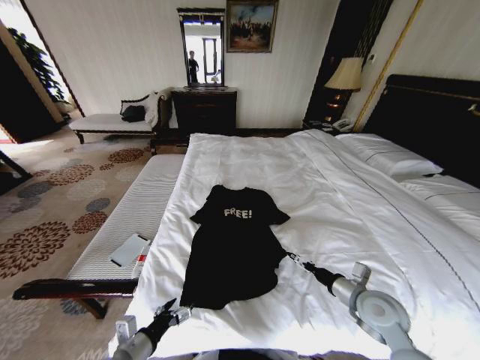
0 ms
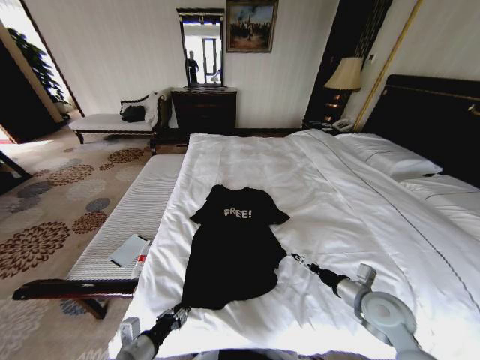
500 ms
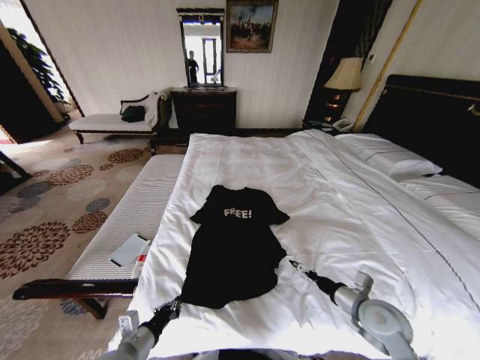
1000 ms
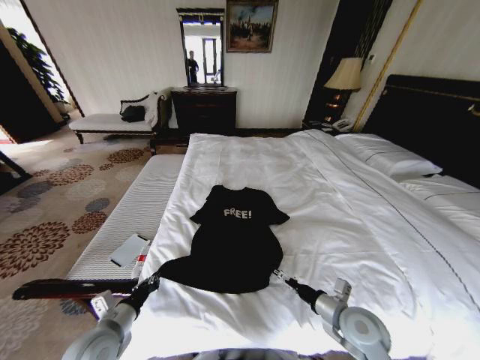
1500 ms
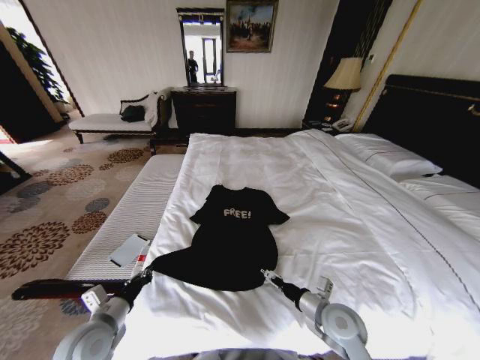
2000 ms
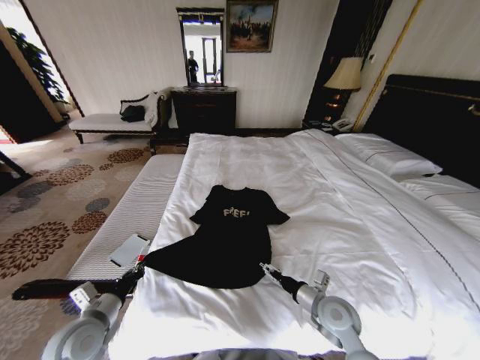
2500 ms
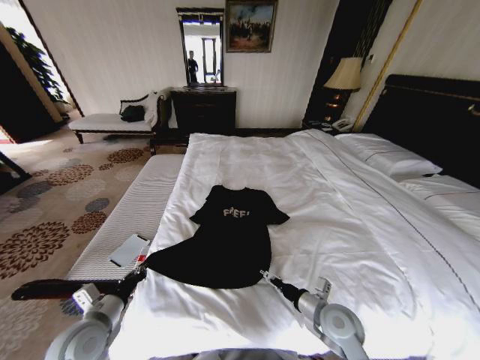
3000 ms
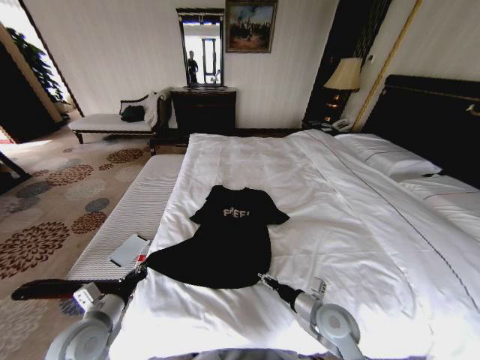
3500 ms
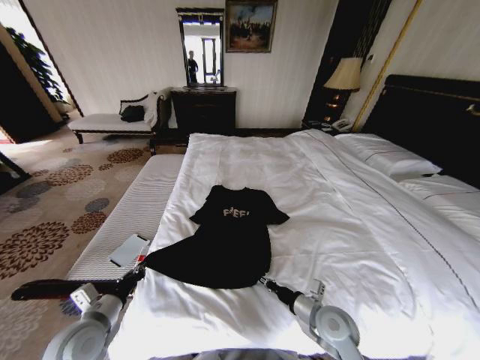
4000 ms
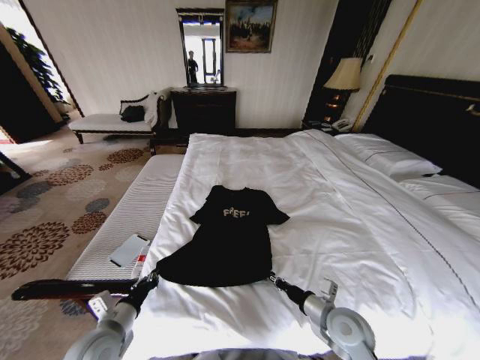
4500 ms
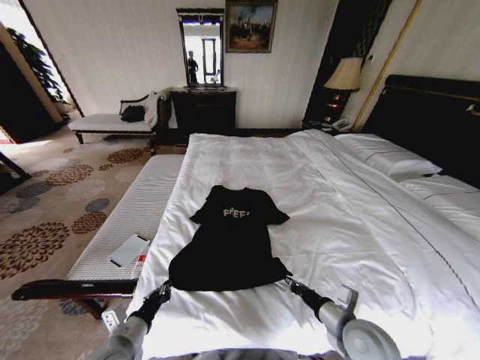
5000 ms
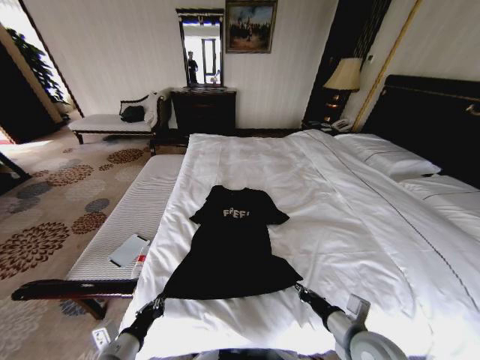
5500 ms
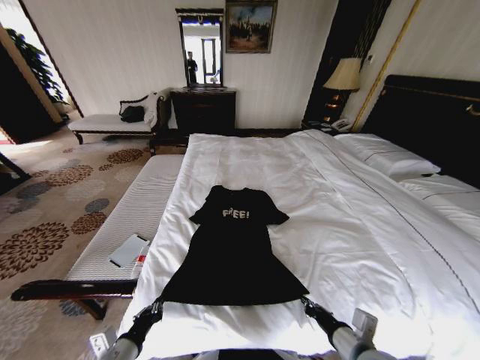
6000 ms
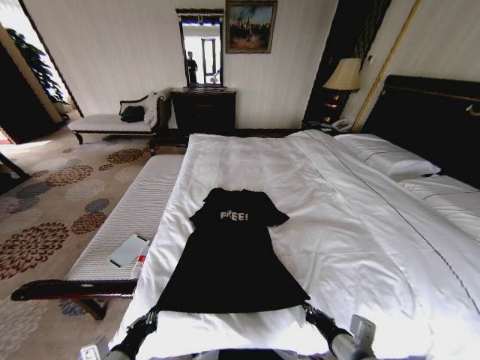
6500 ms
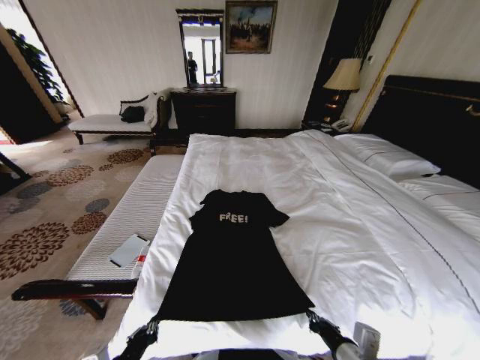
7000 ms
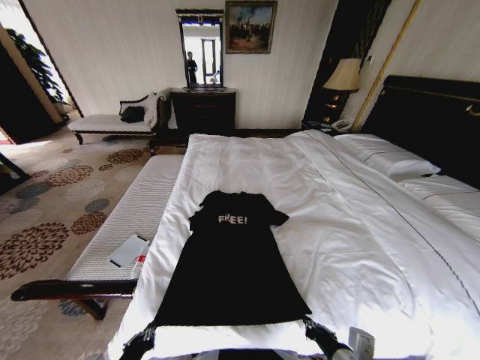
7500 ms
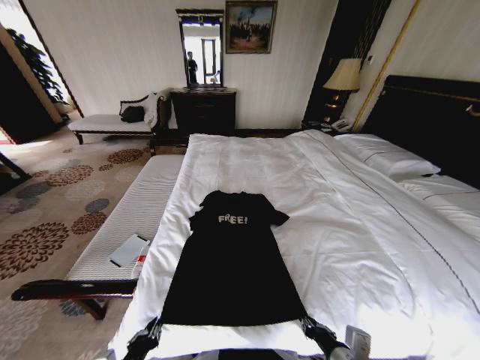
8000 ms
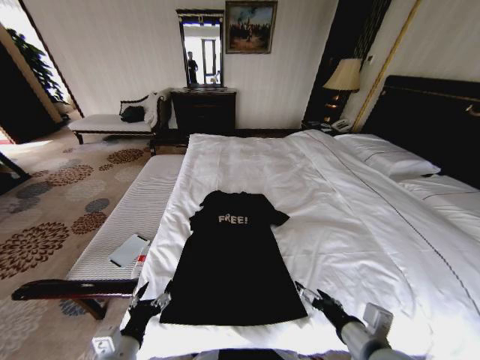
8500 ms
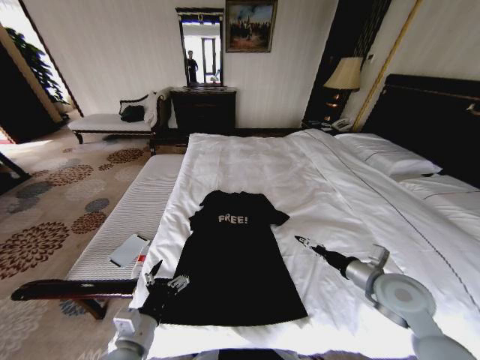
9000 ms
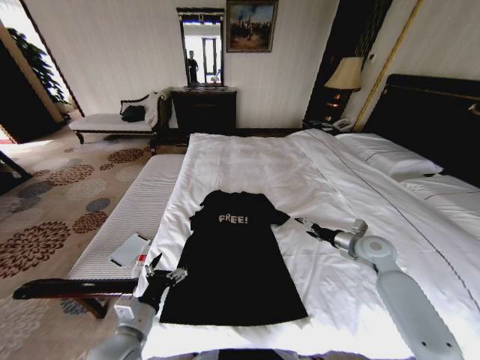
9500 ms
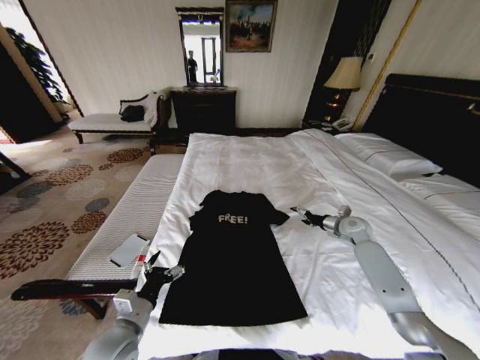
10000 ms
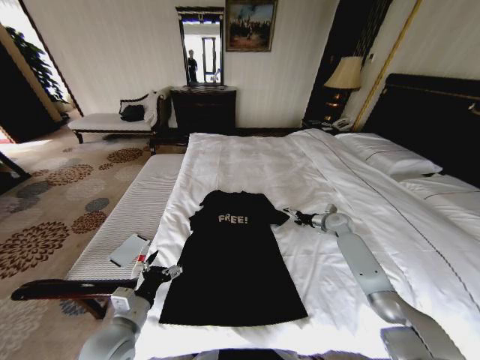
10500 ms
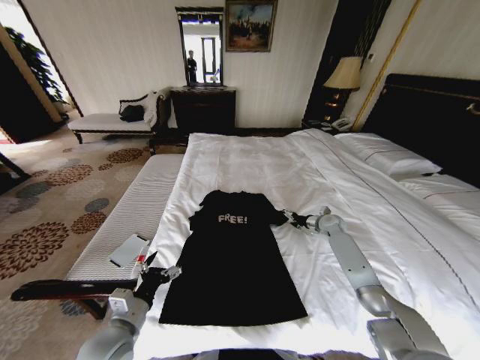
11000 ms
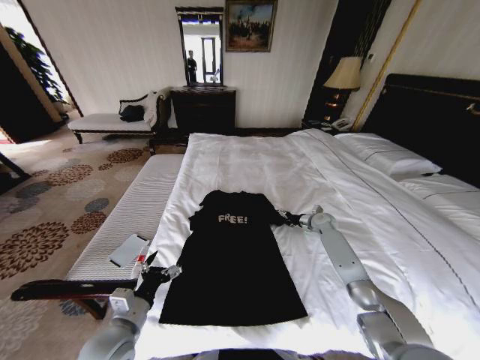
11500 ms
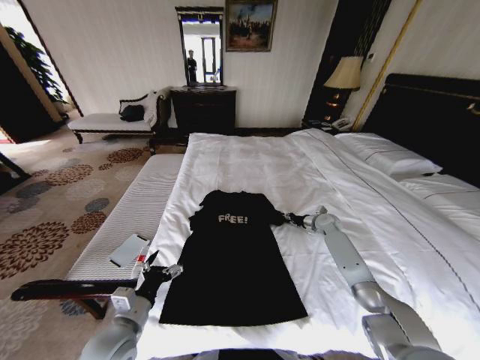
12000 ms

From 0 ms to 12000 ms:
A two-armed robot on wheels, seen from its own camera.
Task of the whole recording: Fold the clothes on the bed.
From 0 ms to 2000 ms: The left gripper moves forward and to the left, approximately 10 cm, and closes its fingers. The right gripper moves to the left, roughly 10 cm.
From 2000 ms to 4000 ms: The right gripper closes its fingers.
From 4000 ms to 6000 ms: The right gripper shifts approximately 10 cm backward and upward, while the left gripper travels backward and to the right by approximately 10 cm.
From 6000 ms to 8000 ms: The grippers make only small movements.
From 8000 ms to 10000 ms: The left gripper goes about 10 cm forward, and opens up. Meanwhile the right gripper is displaced forward and to the right by roughly 40 cm, and opens up.
From 10000 ms to 12000 ms: The right gripper heads forward and downward, covering some 10 cm, and closes up.

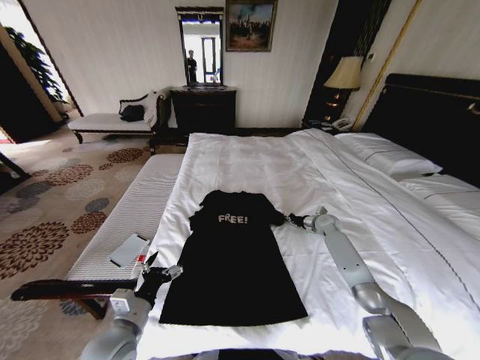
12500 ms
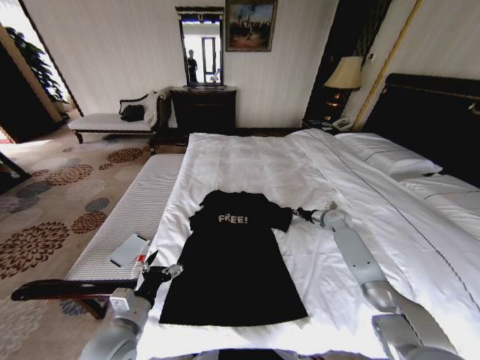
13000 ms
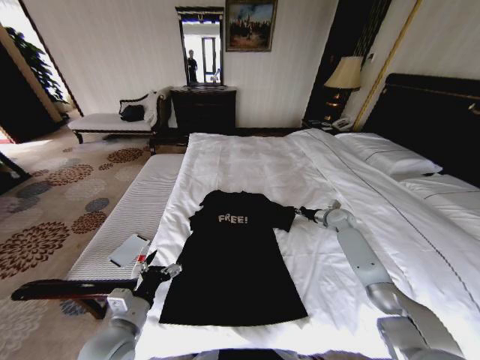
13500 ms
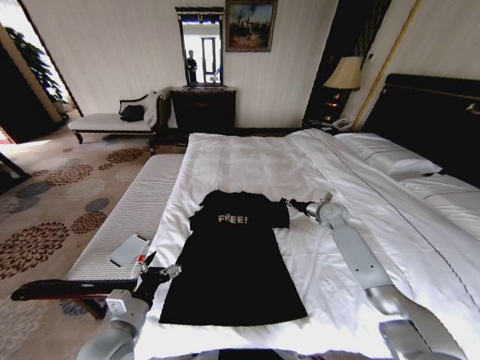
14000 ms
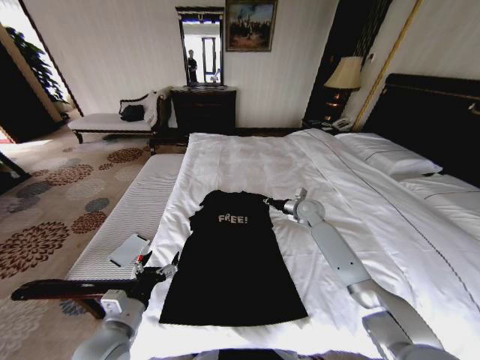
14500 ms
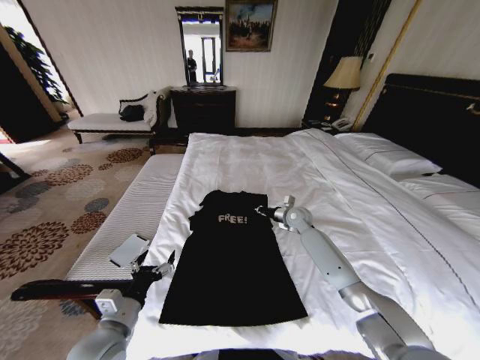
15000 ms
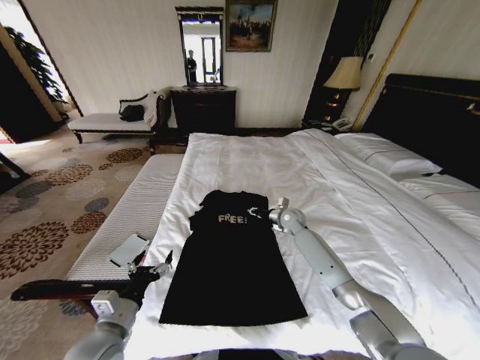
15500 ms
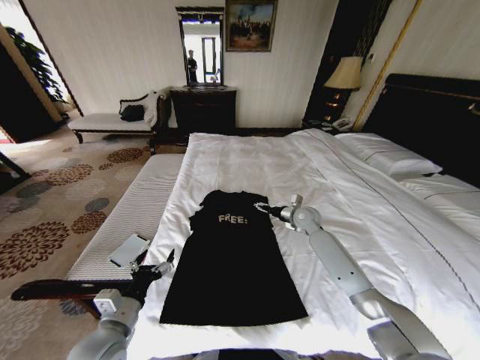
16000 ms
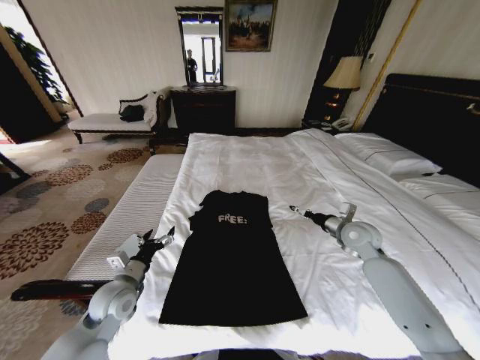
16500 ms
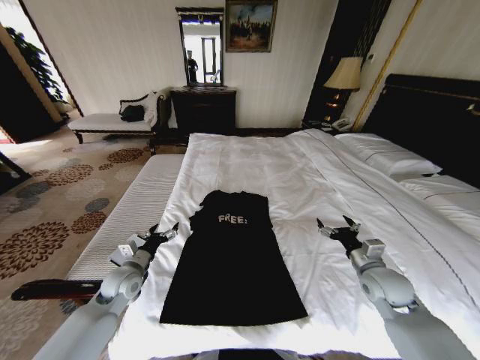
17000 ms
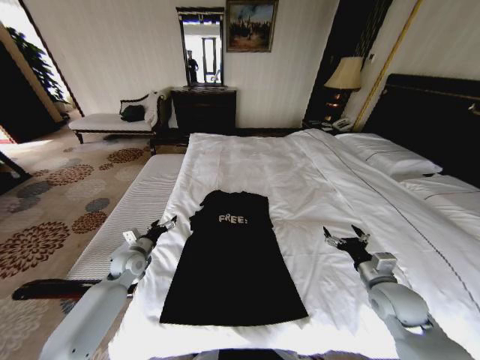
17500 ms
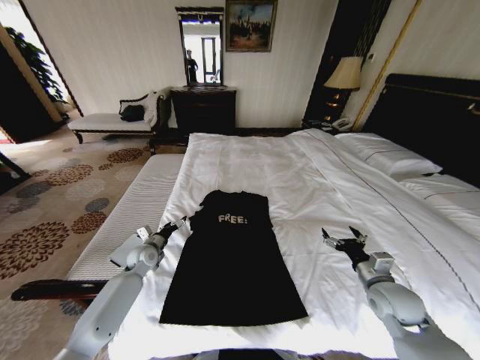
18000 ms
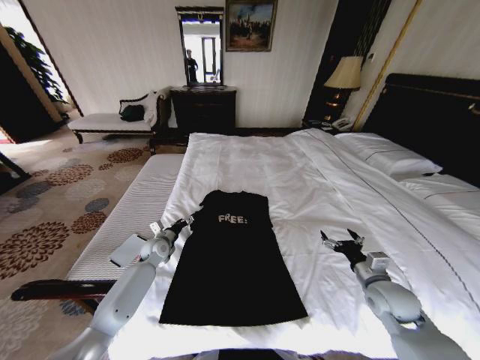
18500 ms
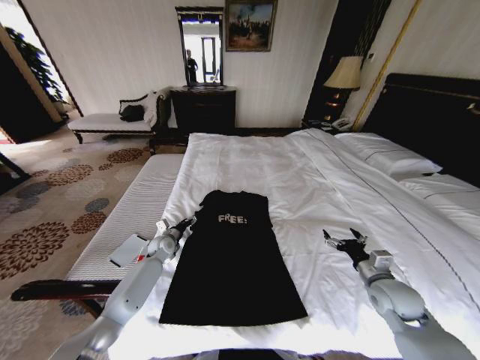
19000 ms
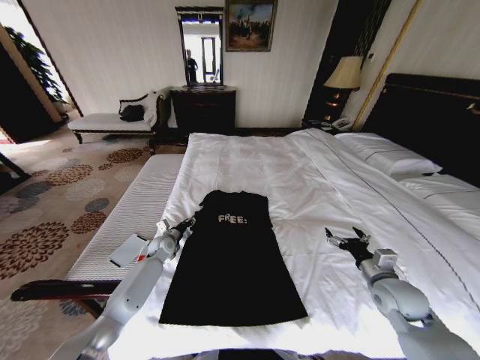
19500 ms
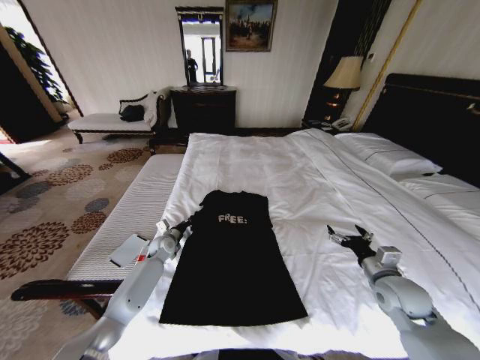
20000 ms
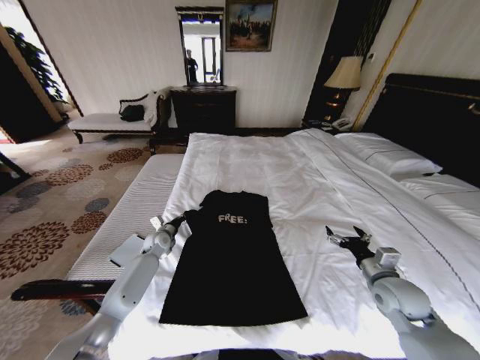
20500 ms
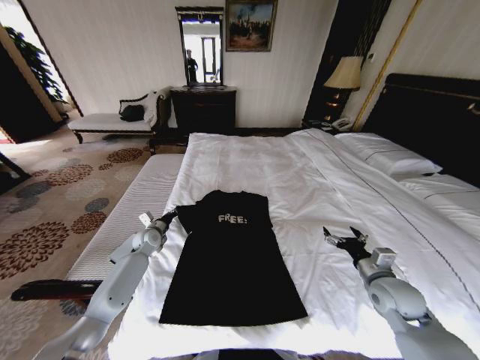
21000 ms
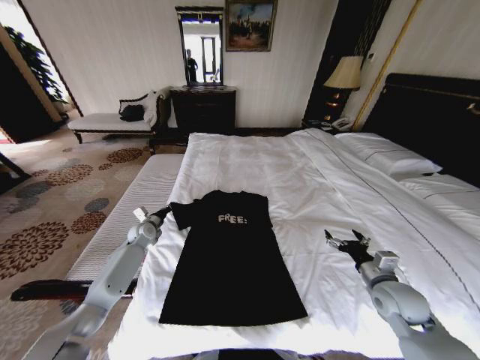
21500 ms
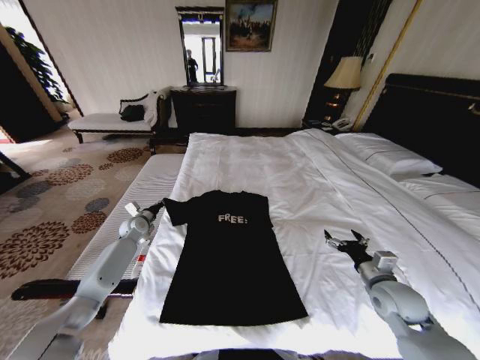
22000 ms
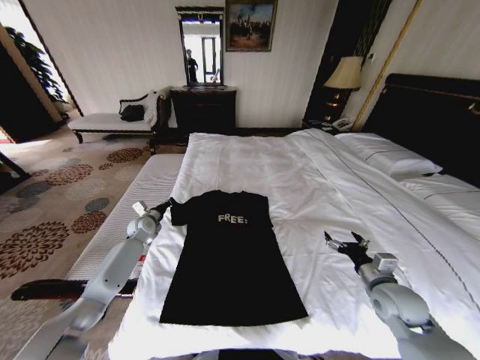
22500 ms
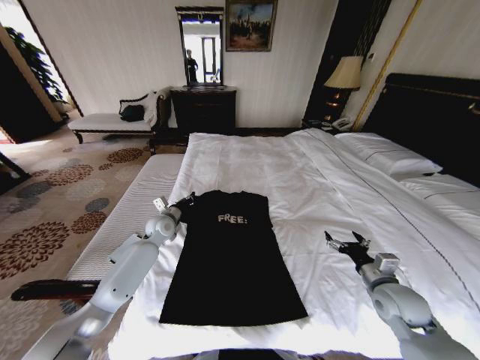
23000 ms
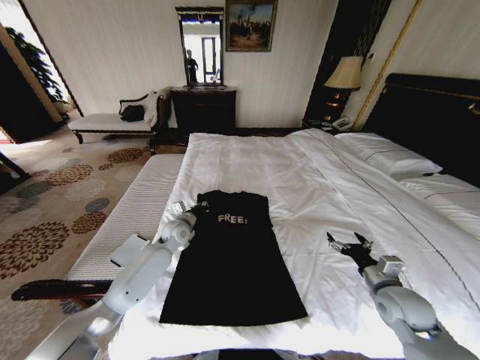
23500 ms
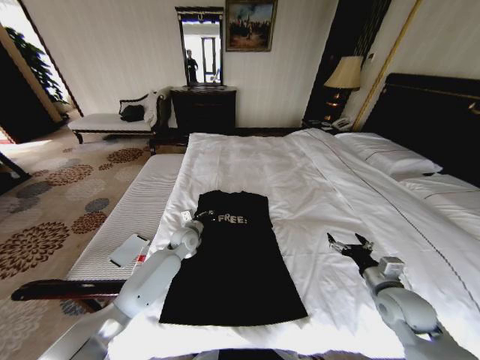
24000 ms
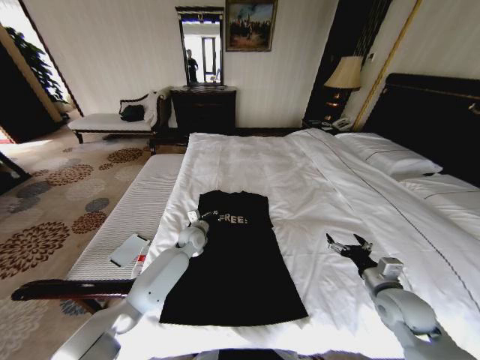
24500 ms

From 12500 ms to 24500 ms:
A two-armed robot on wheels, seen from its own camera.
Task of the whole recording: Fold the clothes on the bed.
From 12500 ms to 14500 ms: The right gripper shifts roughly 15 cm to the left and upward.
From 14500 ms to 16500 ms: The right gripper moves backward and to the right, about 15 cm, and opens up. Meanwhile the left gripper goes about 10 cm forward.
From 16500 ms to 18500 ms: The left gripper shifts roughly 20 cm forward and downward, while the right gripper goes about 15 cm backward and downward.
From 18500 ms to 20500 ms: The left gripper closes.
From 20500 ms to 22500 ms: The left gripper travels upward and to the left by roughly 10 cm.
From 22500 ms to 24500 ms: The left gripper travels to the right by about 20 cm.

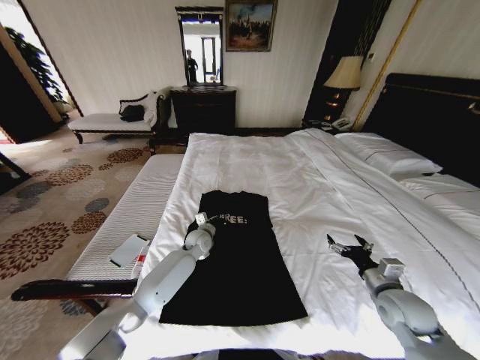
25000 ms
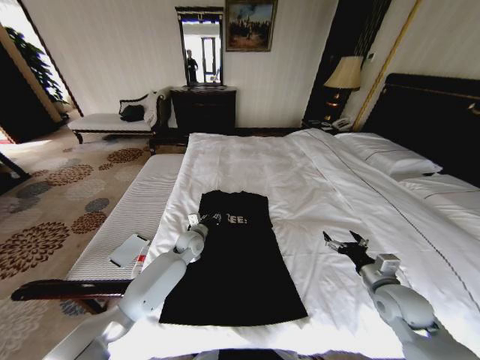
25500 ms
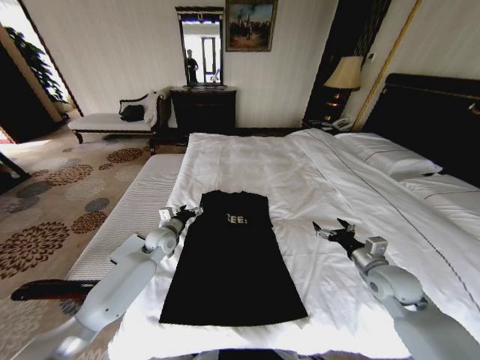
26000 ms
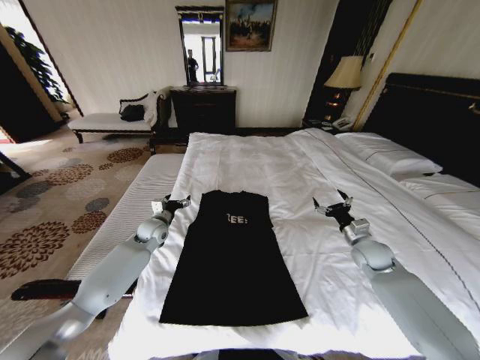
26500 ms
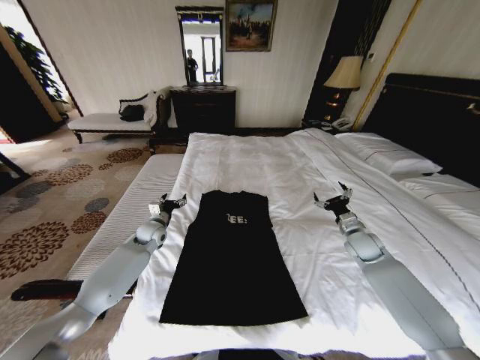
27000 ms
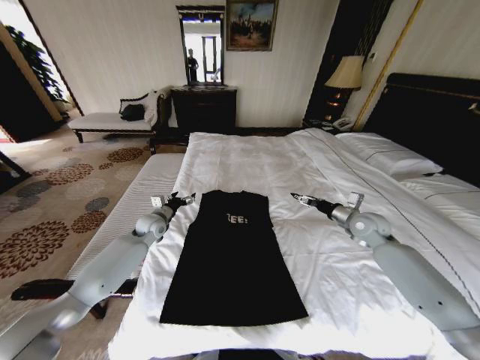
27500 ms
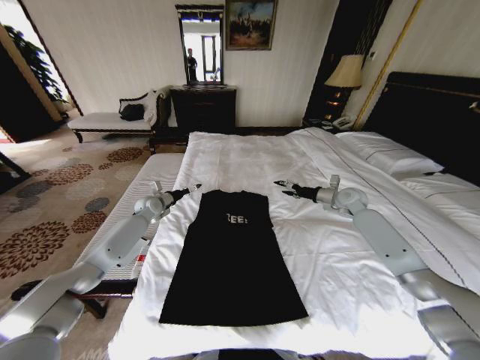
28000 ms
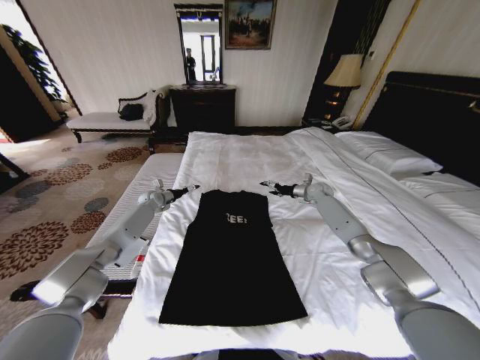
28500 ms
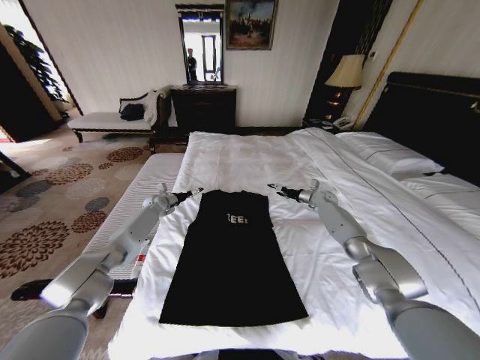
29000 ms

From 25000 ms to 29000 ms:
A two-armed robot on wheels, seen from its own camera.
Task of the whole recording: Fold the clothes on the bed.
From 25000 ms to 27000 ms: The left gripper moves to the left, about 15 cm, and opens, while the right gripper travels forward by approximately 20 cm.
From 27000 ms to 29000 ms: The right gripper moves forward, some 20 cm; the left gripper moves forward, roughly 15 cm.
